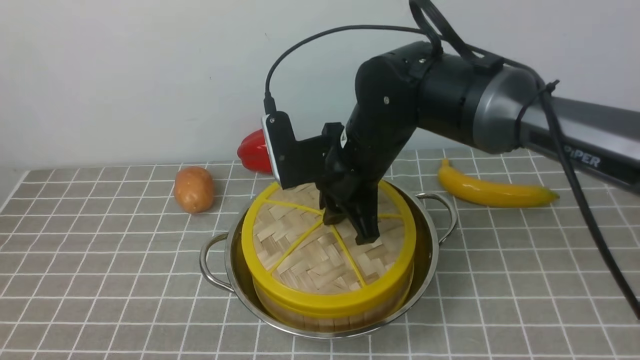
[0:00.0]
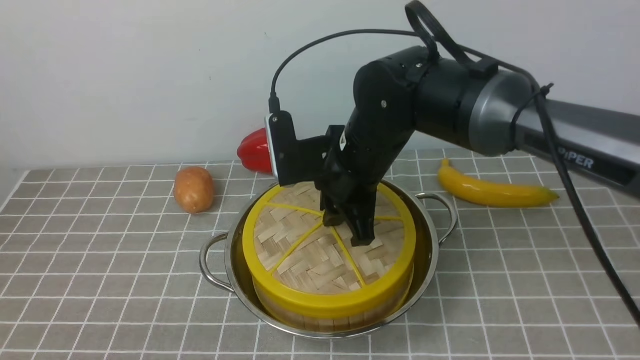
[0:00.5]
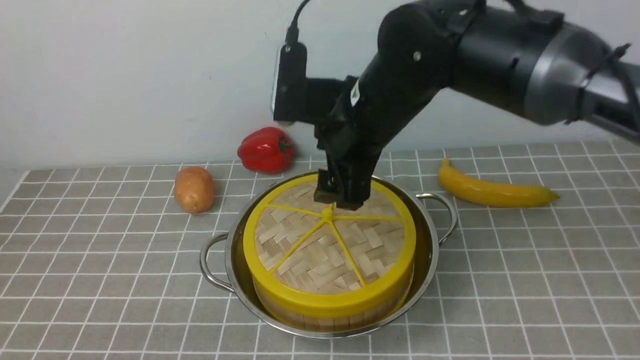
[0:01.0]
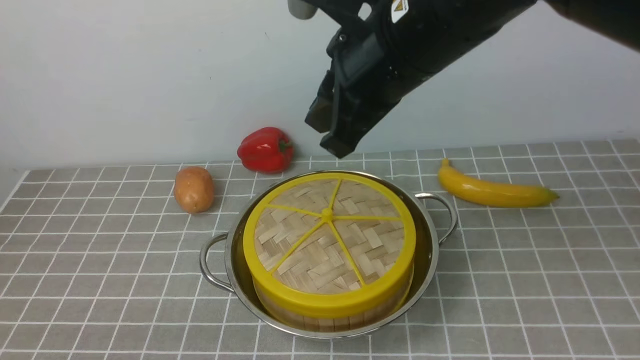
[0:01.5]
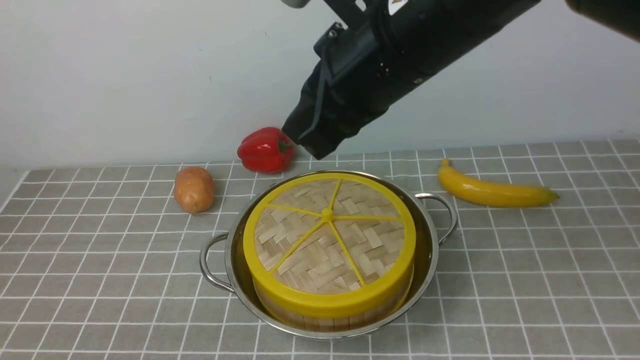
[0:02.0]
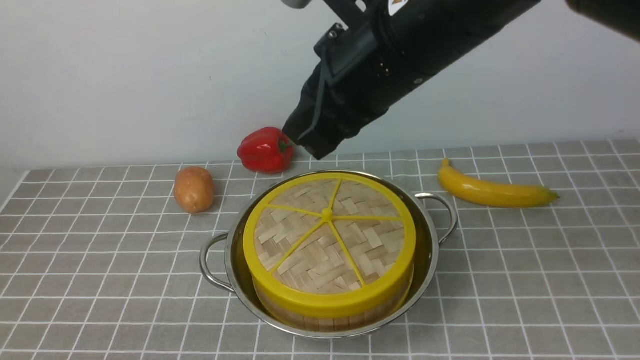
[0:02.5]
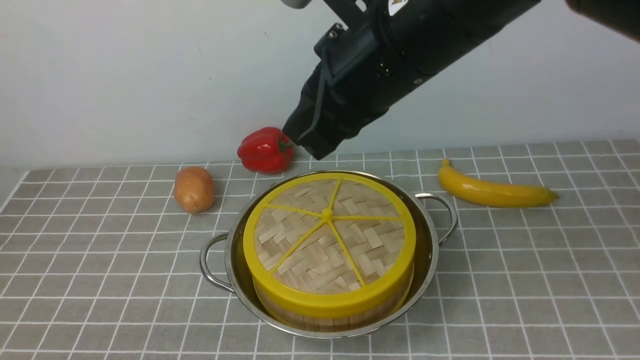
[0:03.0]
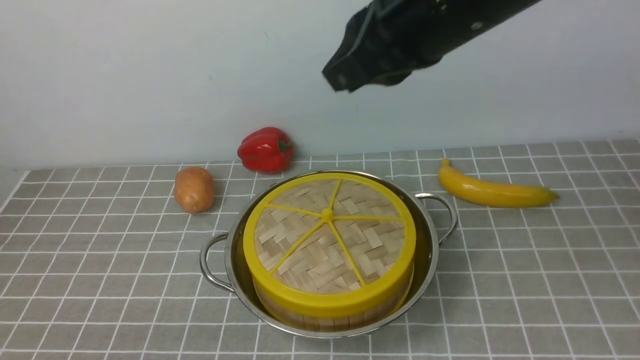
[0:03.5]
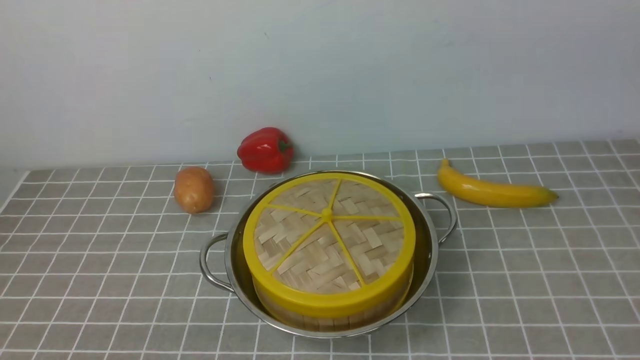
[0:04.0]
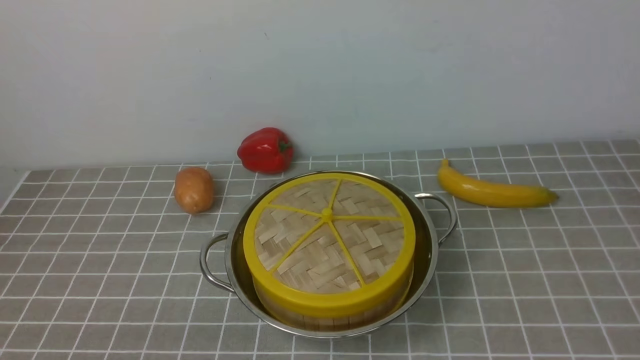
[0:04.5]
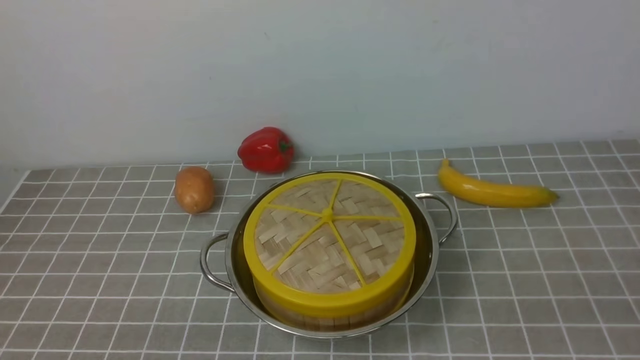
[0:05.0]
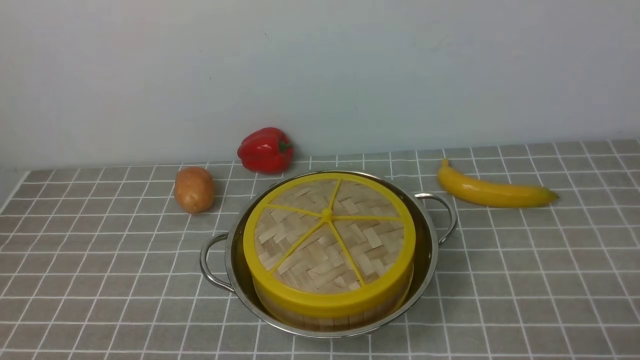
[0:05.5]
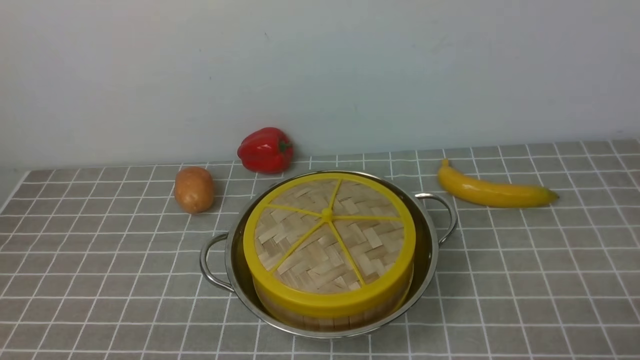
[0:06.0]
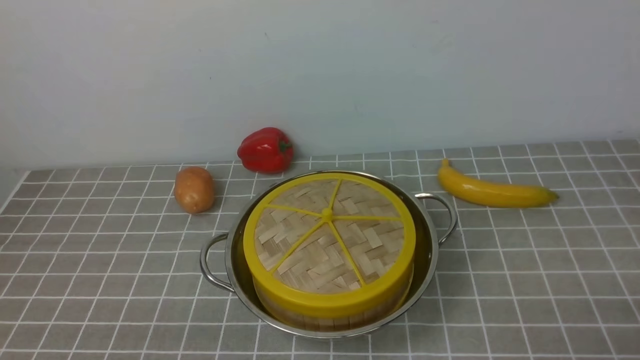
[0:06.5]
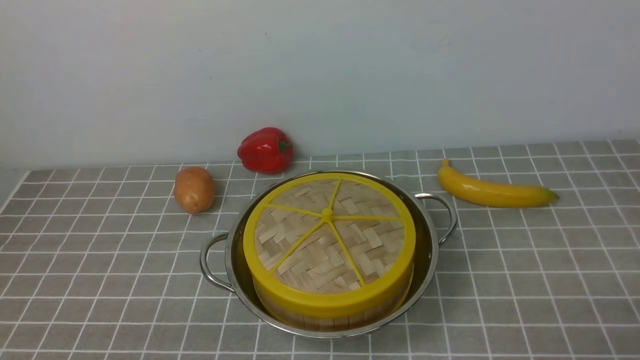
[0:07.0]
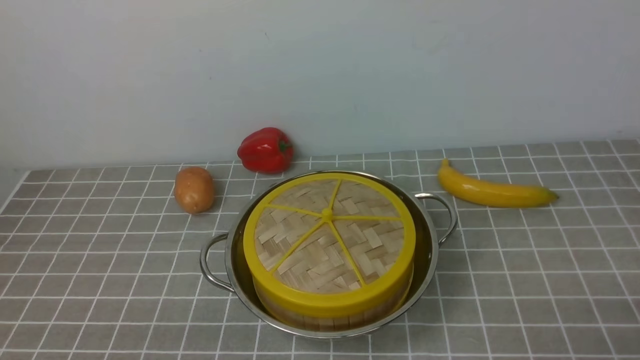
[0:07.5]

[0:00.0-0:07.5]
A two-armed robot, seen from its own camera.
Task of the whole recording: place the steamer in the pot on the grey tablecloth, and put the lid on the steamer.
0:00.0 to 0:02.0: The right gripper moves upward and backward, some 15 cm, and closes up.
0:02.0 to 0:04.0: The right gripper moves to the right, upward and backward, roughly 20 cm.

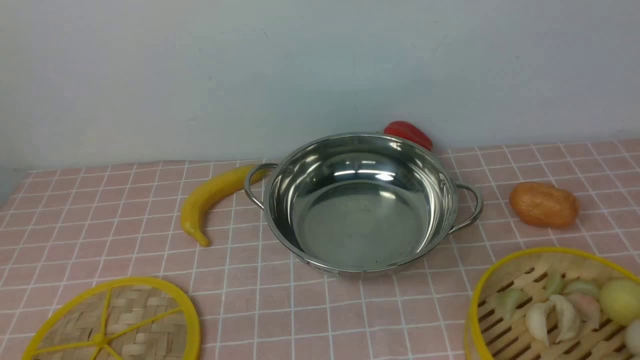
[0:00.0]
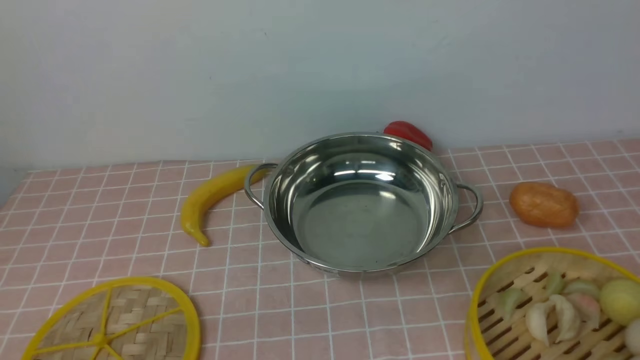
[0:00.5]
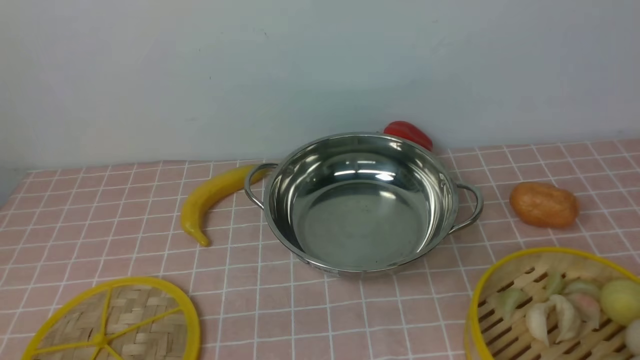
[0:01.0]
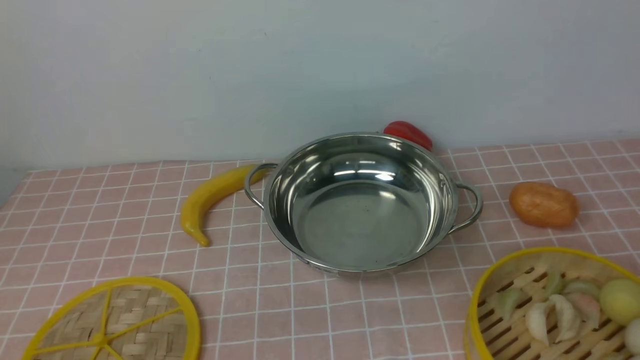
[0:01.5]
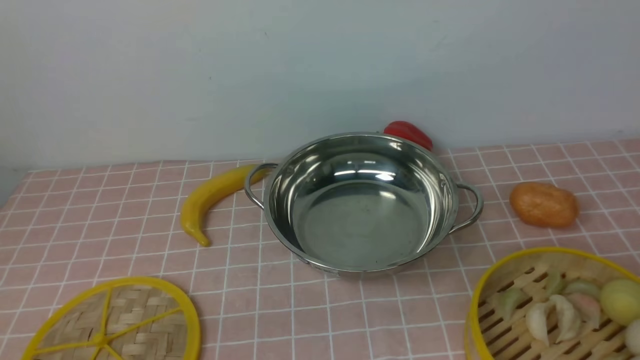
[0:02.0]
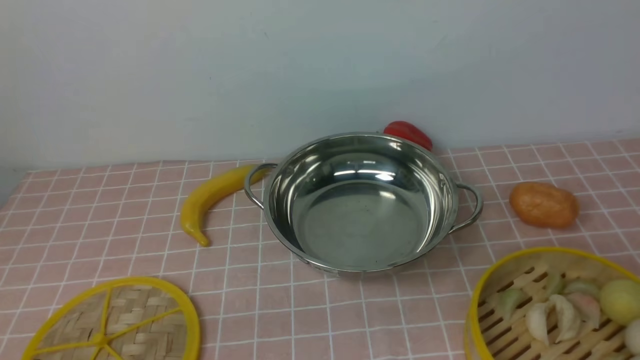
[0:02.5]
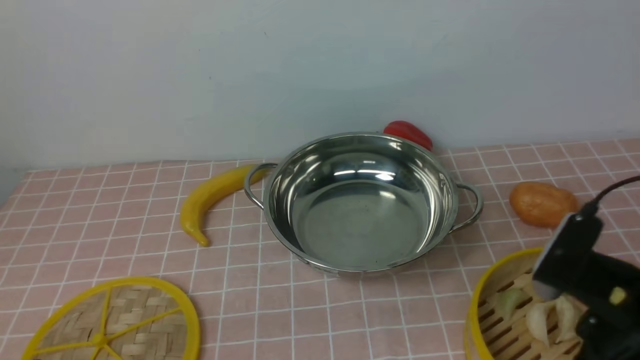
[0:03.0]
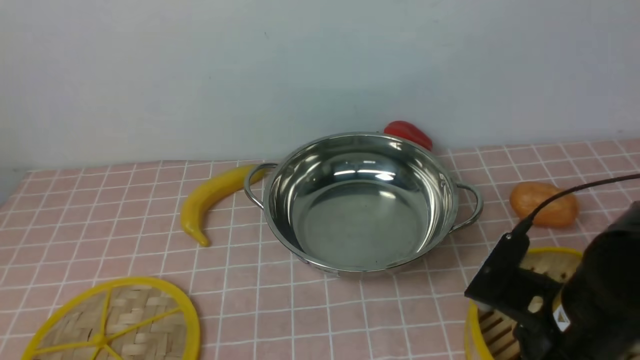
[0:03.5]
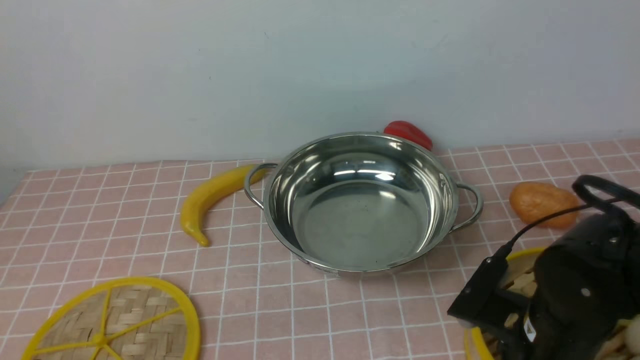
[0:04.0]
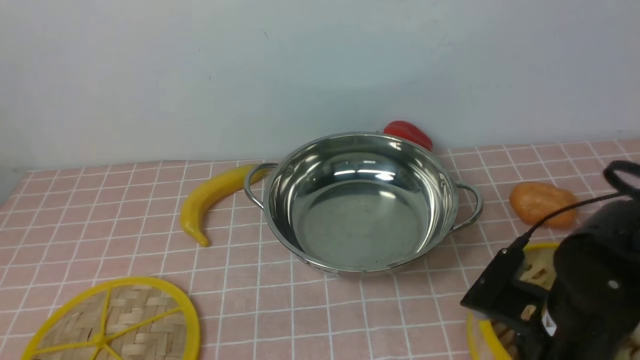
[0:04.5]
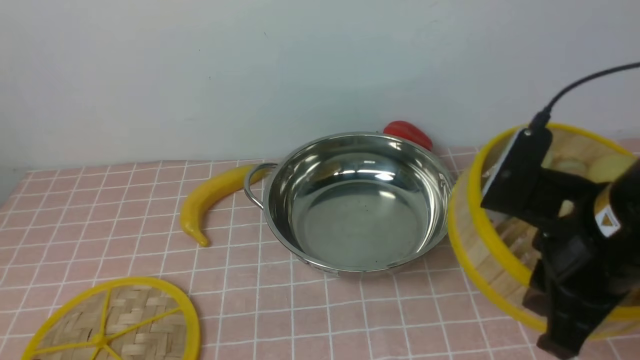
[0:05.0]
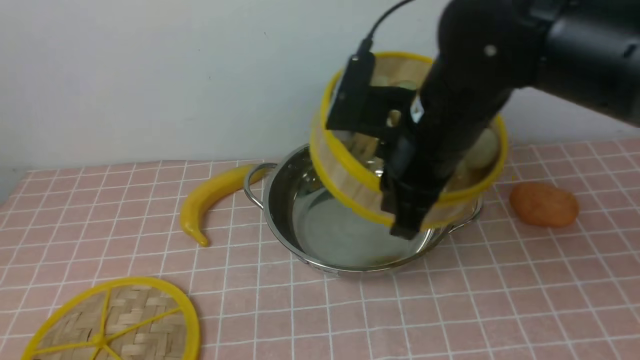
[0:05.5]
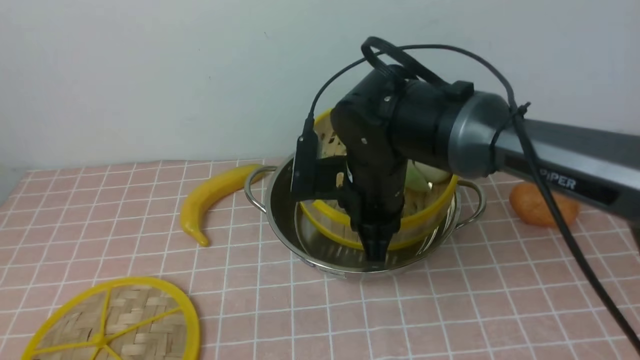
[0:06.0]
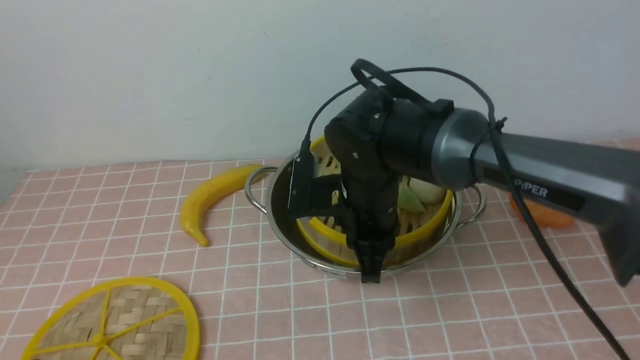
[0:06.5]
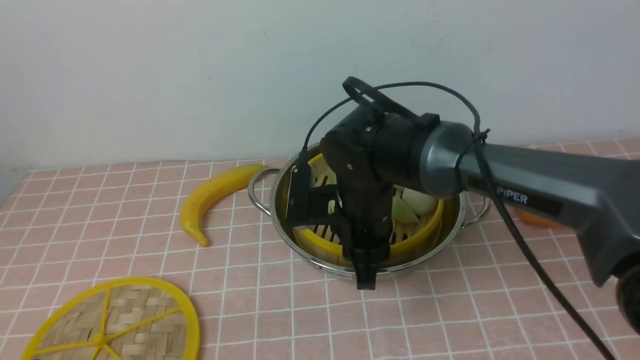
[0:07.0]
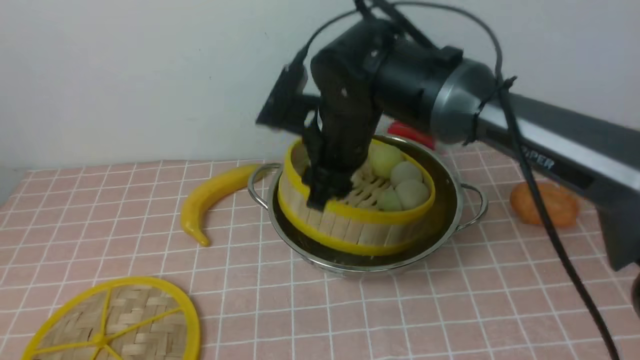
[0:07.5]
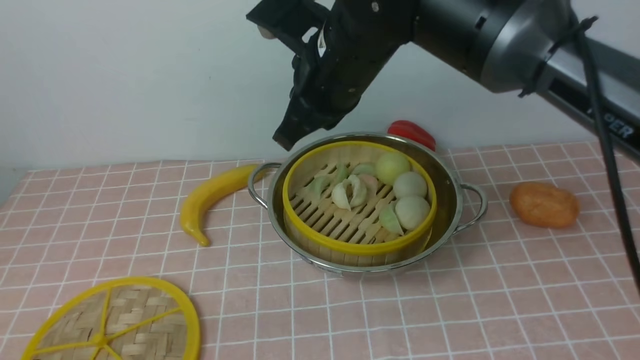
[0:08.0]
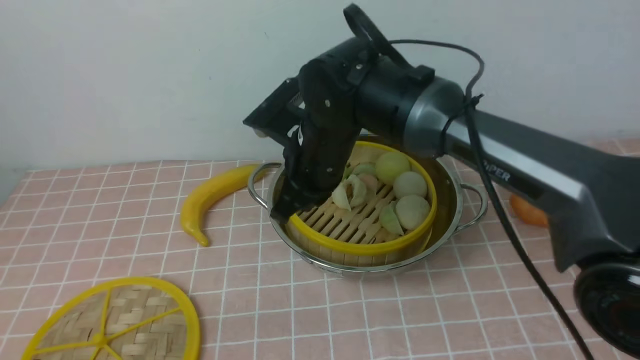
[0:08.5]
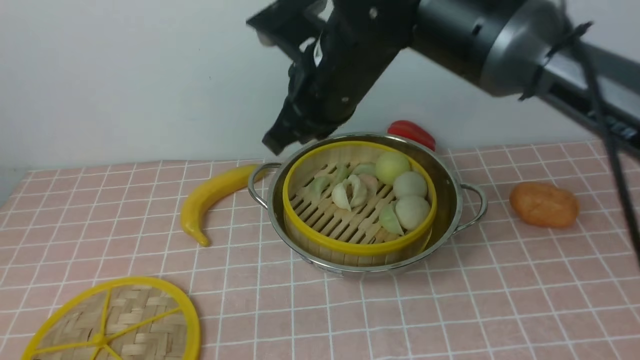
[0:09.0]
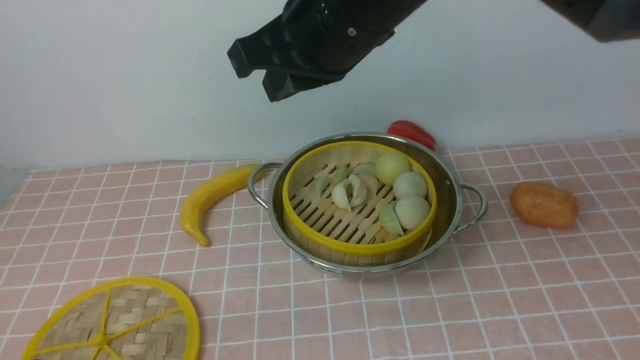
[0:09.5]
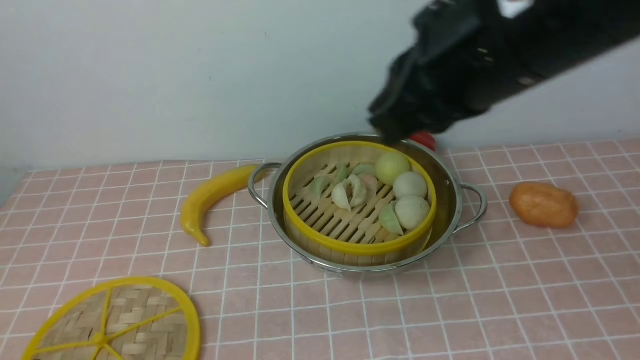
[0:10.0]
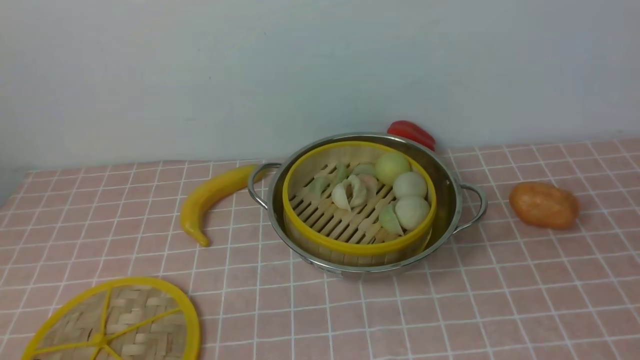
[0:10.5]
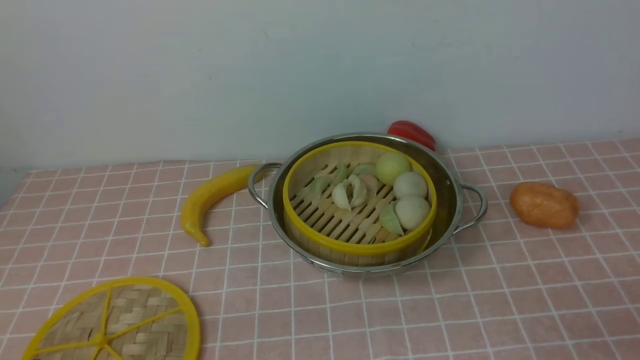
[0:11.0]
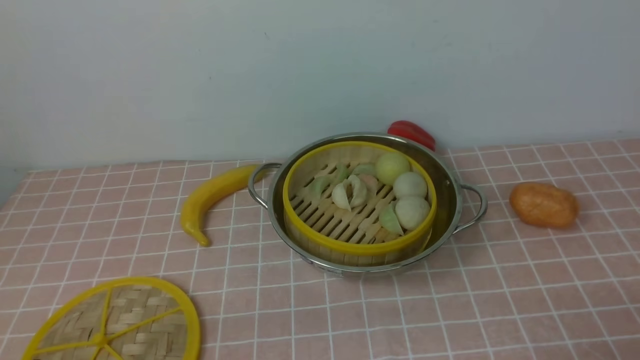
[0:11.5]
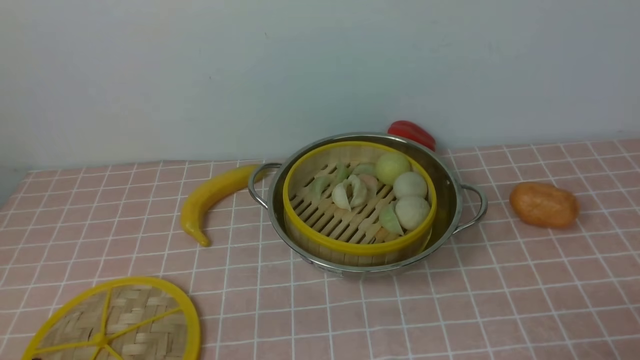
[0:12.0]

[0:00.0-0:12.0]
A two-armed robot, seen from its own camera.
Task of the whole recording: place the steamer in the pot on the pink tablecloth, and put the lid on the steamer.
Step, 0:00.0 to 0:04.5: use the right arm to lift the steamer closest to it.
Step, 0:05.0 to 0:07.5: use the right arm to put the steamer into the iron steamer pot in the middle.
0:02.0 to 0:04.0: The right gripper is displaced forward, to the left and downward by roughly 25 cm.
0:04.0 to 0:06.0: The right gripper is displaced forward, to the left and upward by approximately 20 cm, and closes.
0:06.0 to 0:08.0: The right gripper is displaced upward by some 10 cm, and opens, then closes once more.
0:08.0 to 0:10.0: The right gripper heads backward, to the right and upward, covering about 15 cm.
0:10.0 to 0:12.0: The right gripper moves downward, to the right and backward, roughly 40 cm, and opens.
